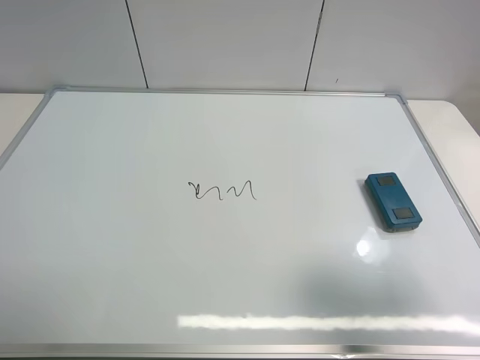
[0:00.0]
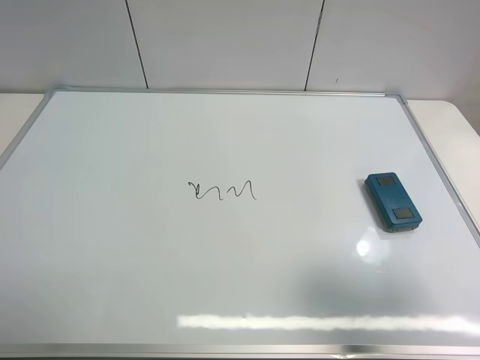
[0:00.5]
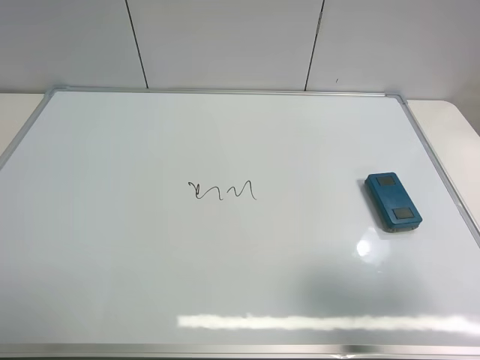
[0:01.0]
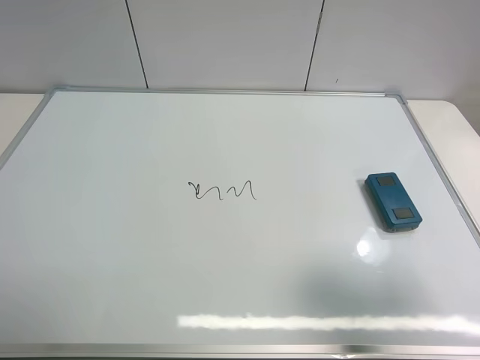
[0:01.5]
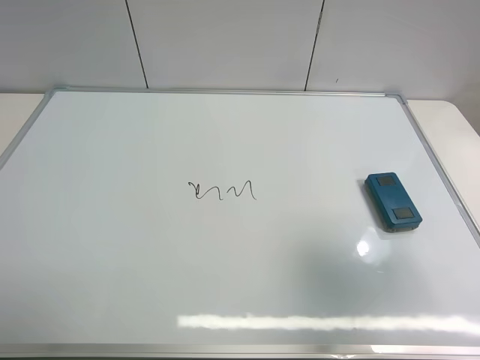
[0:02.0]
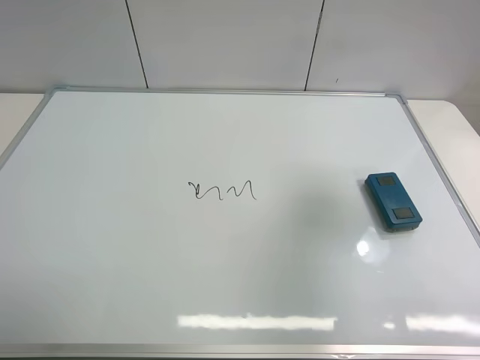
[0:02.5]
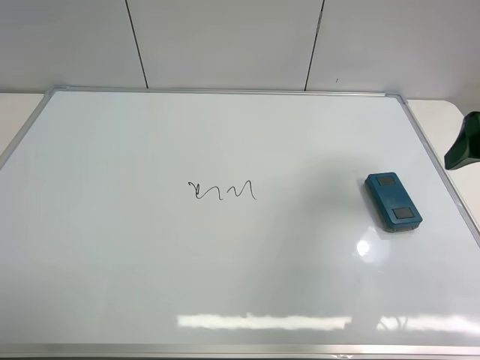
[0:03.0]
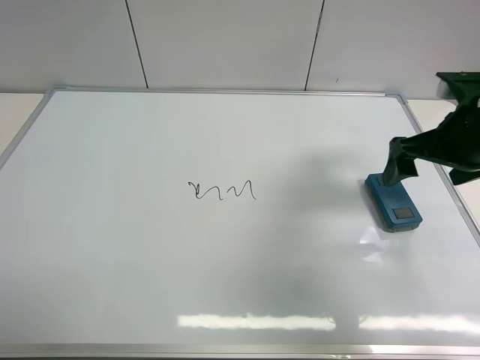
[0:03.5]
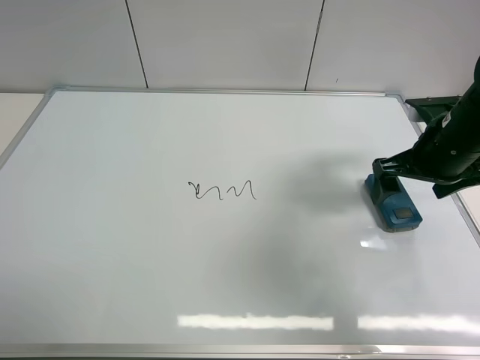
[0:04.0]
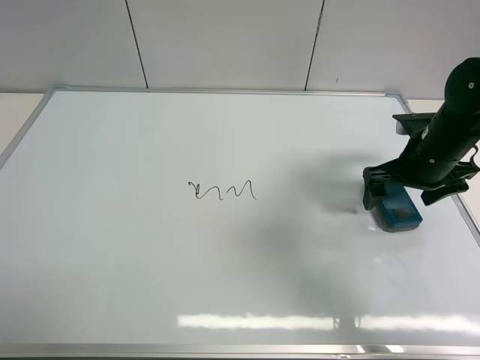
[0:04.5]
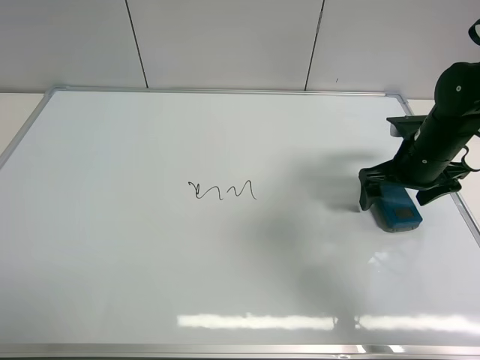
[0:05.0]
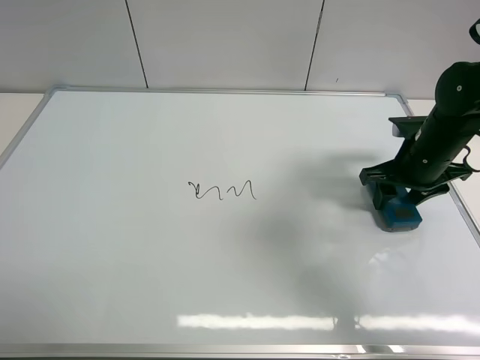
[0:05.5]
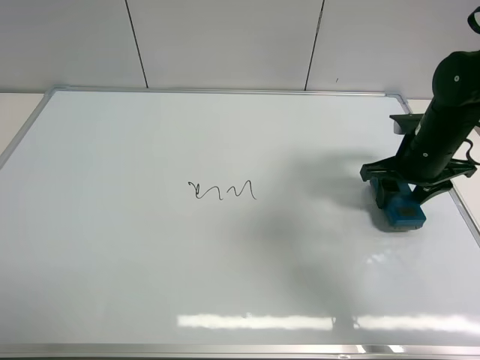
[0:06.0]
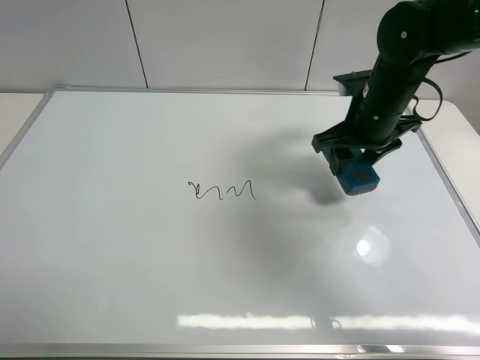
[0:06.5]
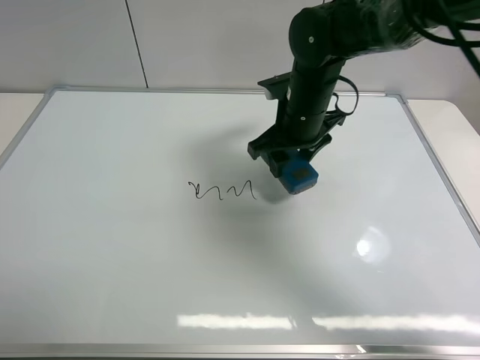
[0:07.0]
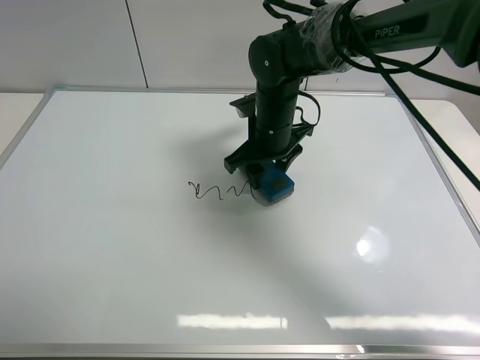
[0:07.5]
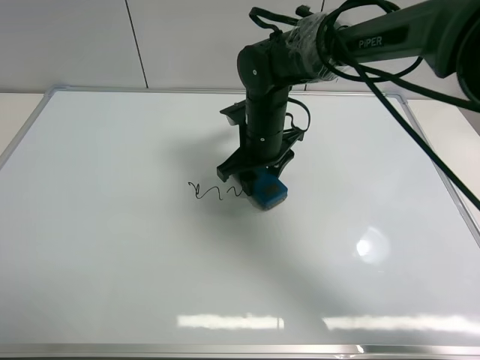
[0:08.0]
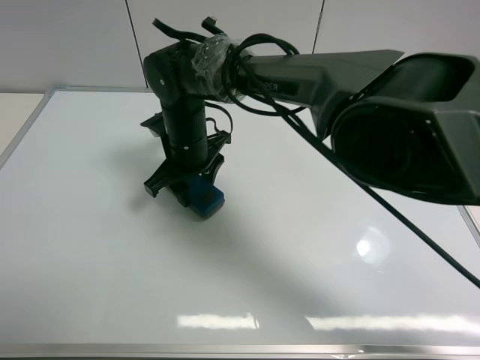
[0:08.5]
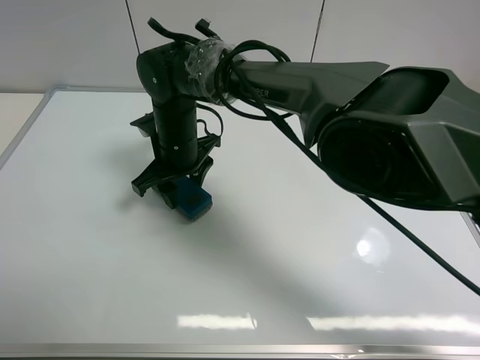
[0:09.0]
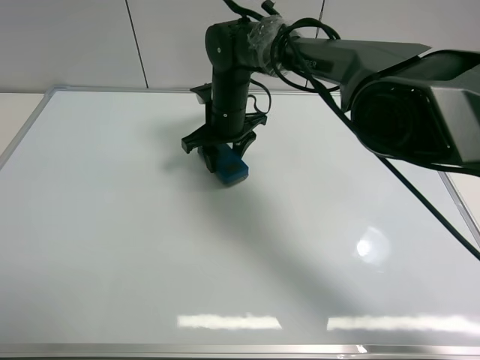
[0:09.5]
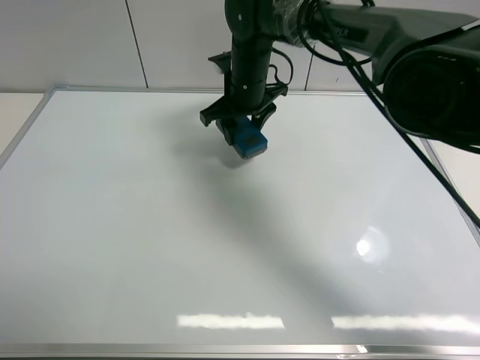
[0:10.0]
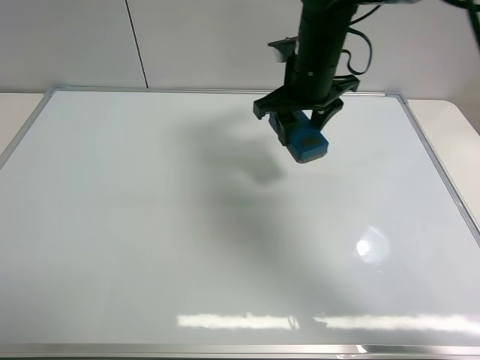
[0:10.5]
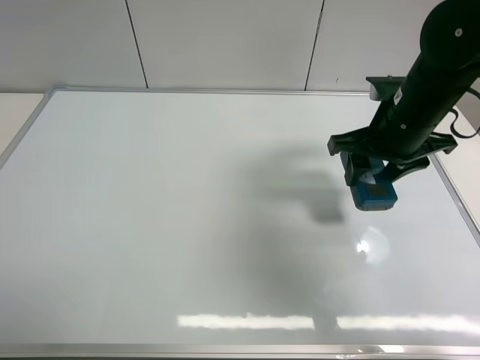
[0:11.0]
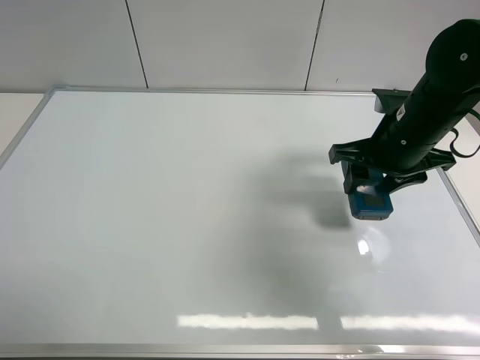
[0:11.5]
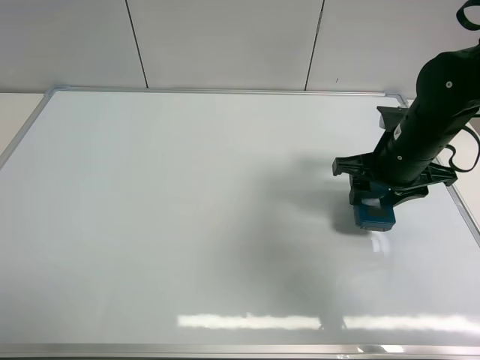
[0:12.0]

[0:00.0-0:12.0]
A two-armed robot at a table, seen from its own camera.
Task of the whole recording: use the right gripper to pick up the board eraser, wipe the notes on the whiteboard clean, and then put them back in place.
Step, 0:00.0 to 0:06.0: Pick up the board eraser with right gripper.
Step, 0:06.5 to 0:09.5: Wipe off the writing on the board with right gripper.
0:00.0 to 0:02.0: The right gripper ends up roughly 5 cm from where it was.
0:02.0 to 0:04.0: The right gripper travels forward and downward by approximately 25 cm.
0:04.0 to 0:06.0: The right gripper closes up.
0:06.0 to 0:08.0: The right gripper heads to the left, covering some 25 cm.
0:08.0 to 0:10.0: The right gripper heads forward and upward, covering some 10 cm, and reaches about 10 cm to the left, then returns.
0:10.0 to 0:12.0: The right gripper travels to the right and backward by about 25 cm.

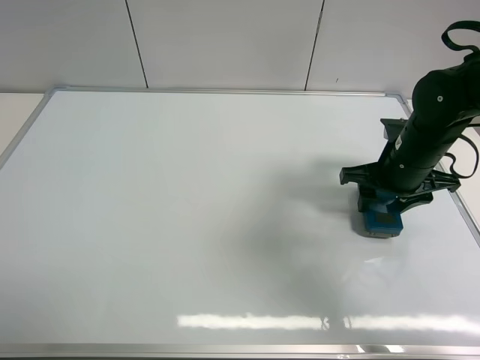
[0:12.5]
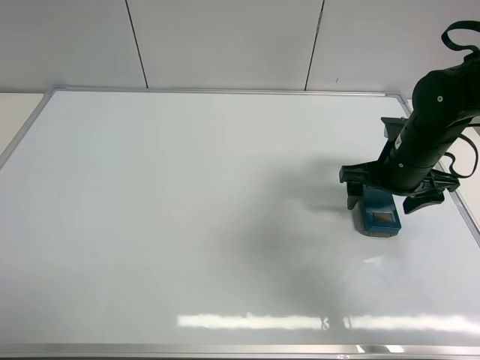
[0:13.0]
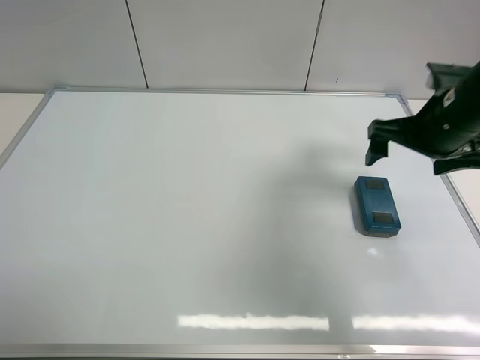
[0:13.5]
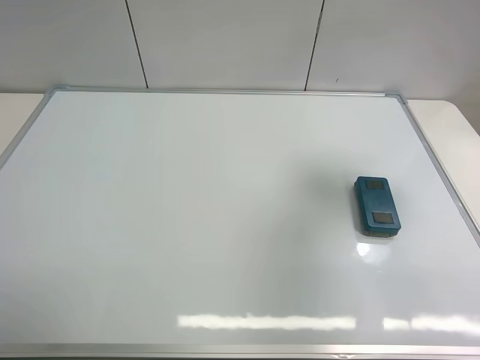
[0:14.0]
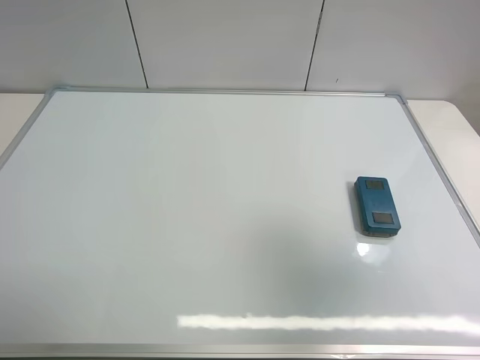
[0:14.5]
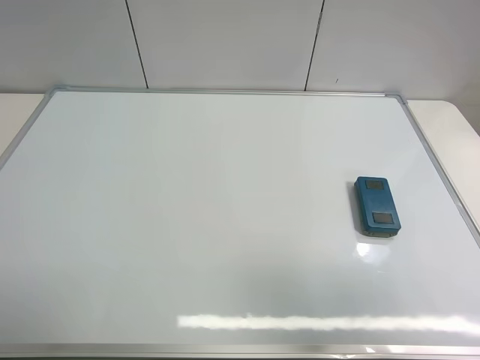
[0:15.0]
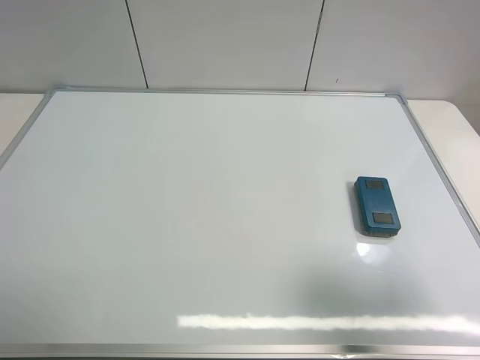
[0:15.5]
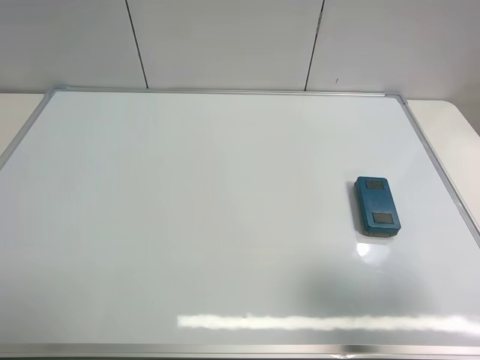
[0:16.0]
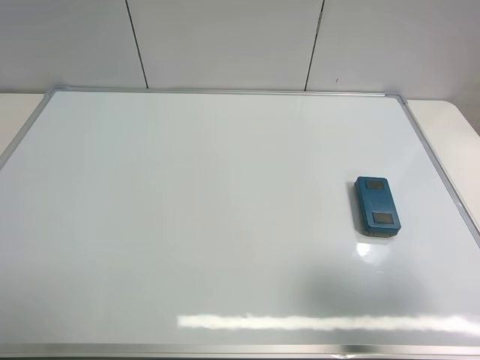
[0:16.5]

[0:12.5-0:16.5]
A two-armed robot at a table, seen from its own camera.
Task of the whole recording: use the right gripper to pick up the board eraser, wipe the notes on the whiteboard clean, and then put them back in place.
0:12.5 to 0:14.5: The right gripper moves backward and upward, some 35 cm, and opens up.
0:14.5 to 0:16.5: The right gripper goes about 10 cm downward.

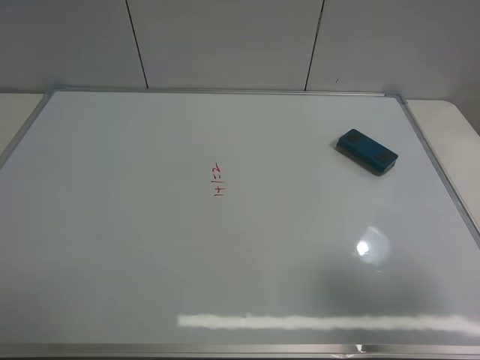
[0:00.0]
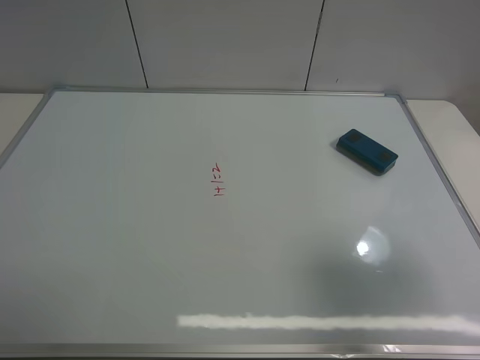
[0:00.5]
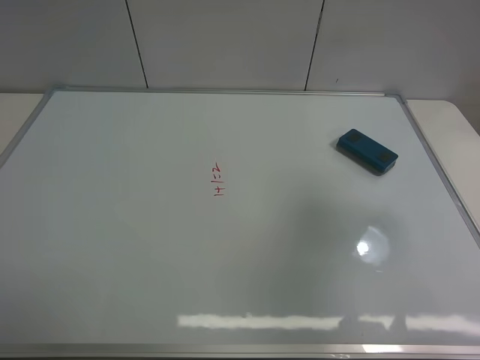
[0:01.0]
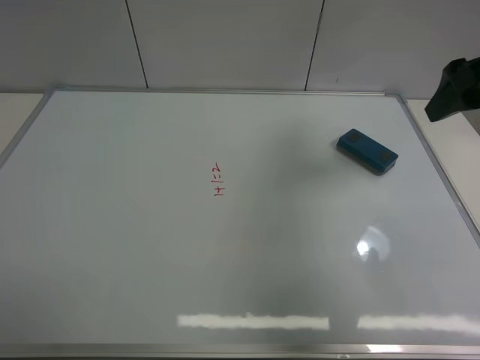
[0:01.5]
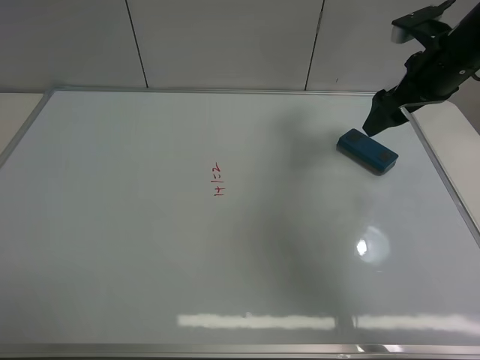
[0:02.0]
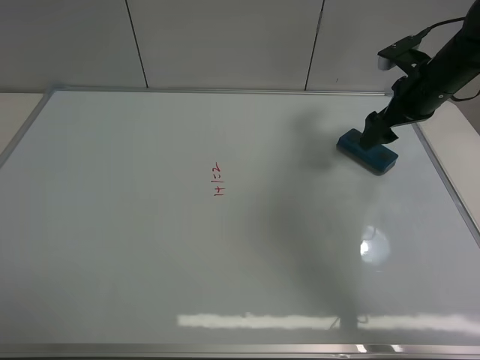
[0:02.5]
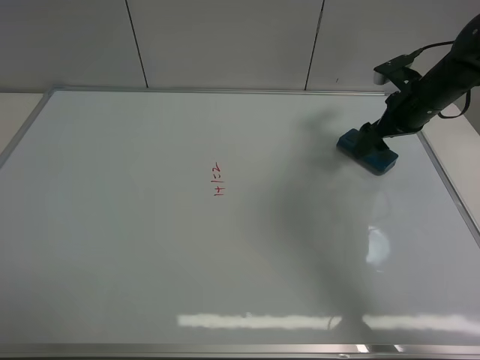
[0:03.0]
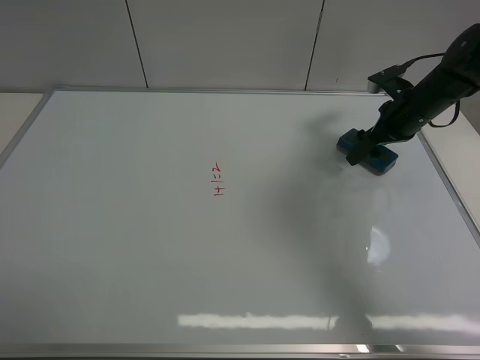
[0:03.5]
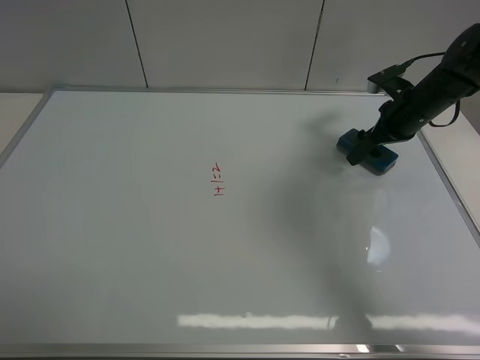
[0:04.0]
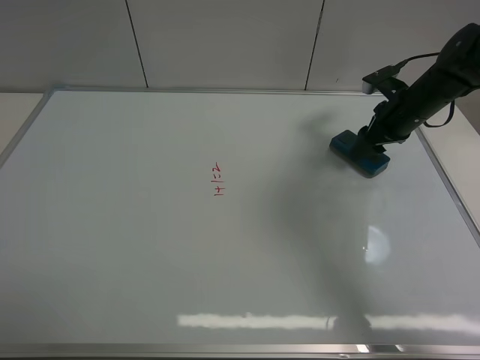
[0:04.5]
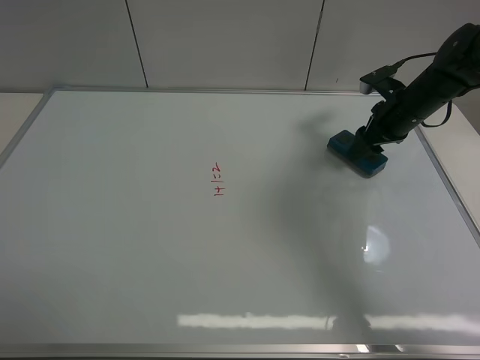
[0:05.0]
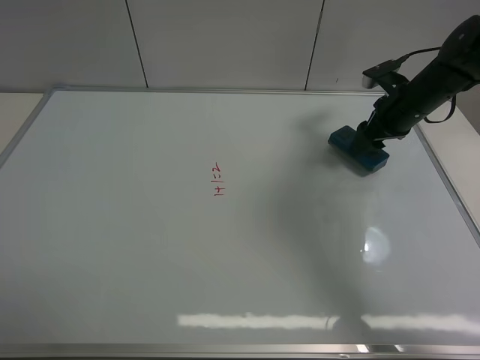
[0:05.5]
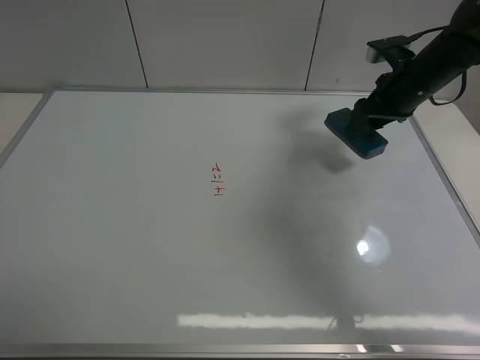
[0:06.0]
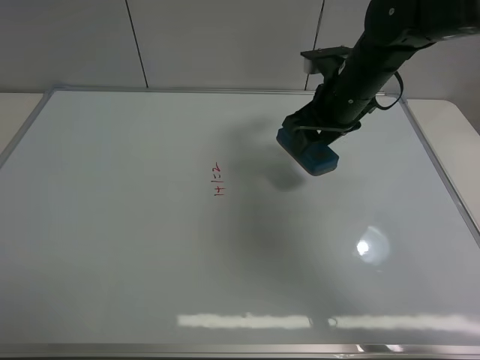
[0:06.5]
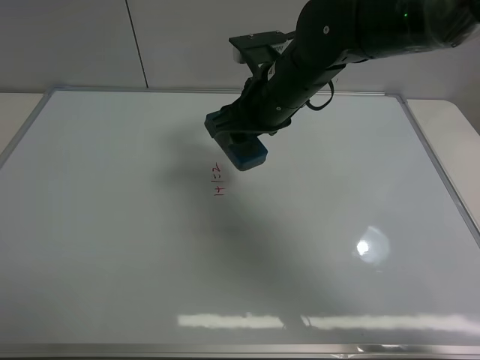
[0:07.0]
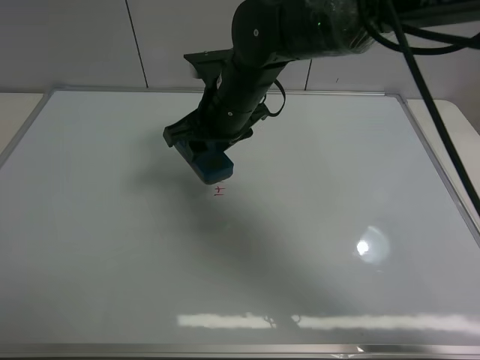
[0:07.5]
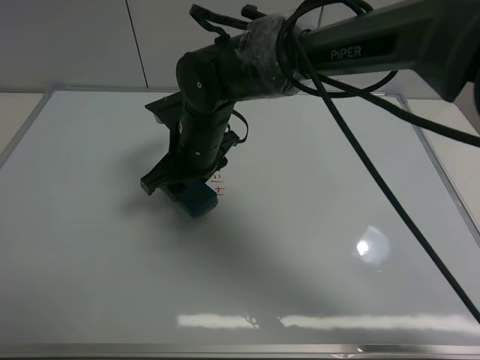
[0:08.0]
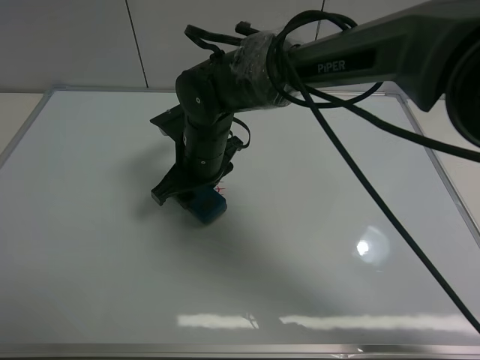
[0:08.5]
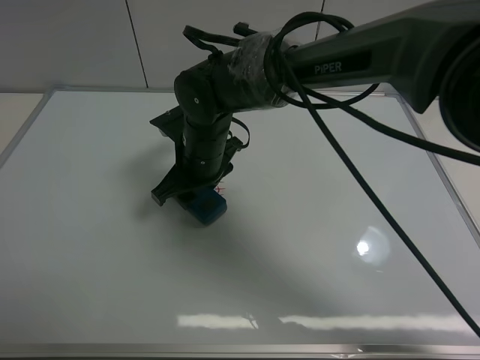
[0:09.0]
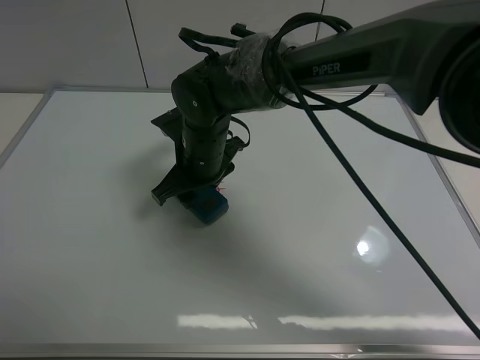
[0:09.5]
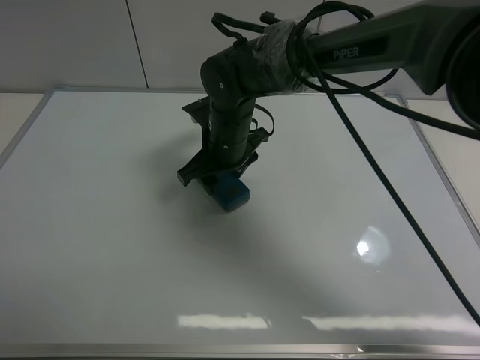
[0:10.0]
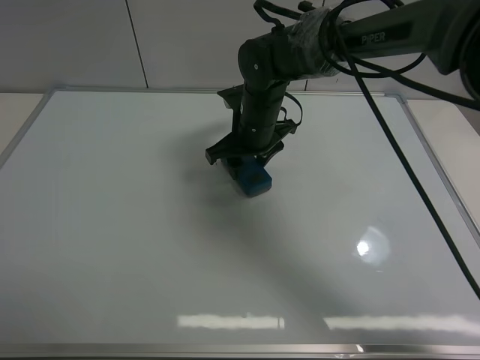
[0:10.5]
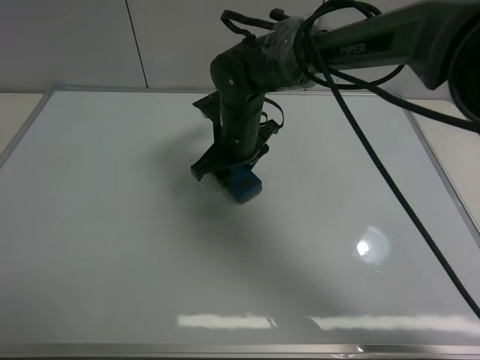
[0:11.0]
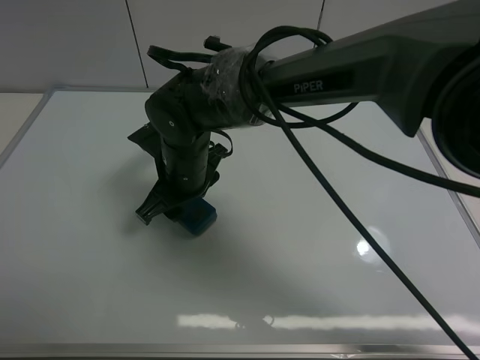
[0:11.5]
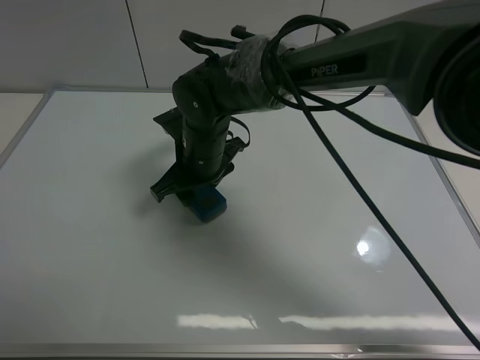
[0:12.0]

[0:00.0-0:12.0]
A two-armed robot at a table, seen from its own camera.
Task of the whole recording: use the right gripper to pick up the board eraser, wipe the notes on the whiteboard clean, and then put them back in place.
Step, 0:00.0 to 0:05.5: Pick up the board eraser with right gripper.
0:00.0 to 0:02.0: The right gripper heads forward, covering approximately 35 cm.
0:02.0 to 0:04.0: The right gripper travels downward by some 10 cm.
0:04.0 to 0:06.0: The right gripper moves upward, approximately 5 cm, and closes up.
0:06.0 to 0:08.0: The right gripper heads to the left, covering approximately 30 cm.
0:08.0 to 0:10.0: The right gripper moves some 5 cm.
0:10.0 to 0:12.0: The right gripper travels to the left and back again, approximately 5 cm each way.
